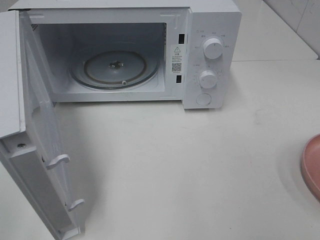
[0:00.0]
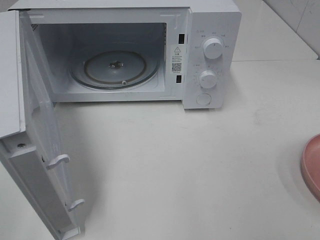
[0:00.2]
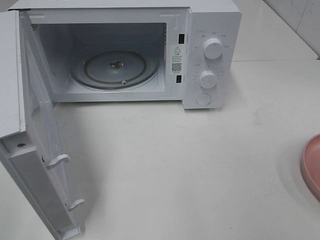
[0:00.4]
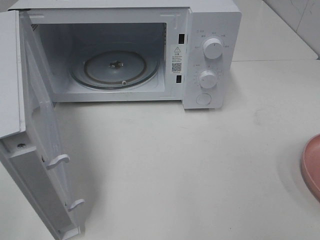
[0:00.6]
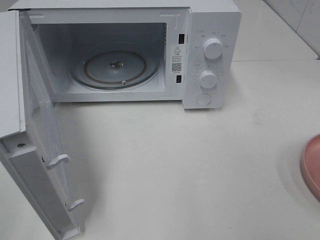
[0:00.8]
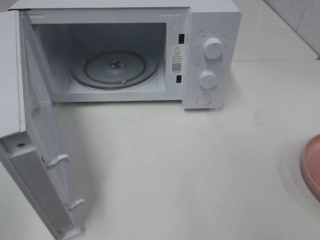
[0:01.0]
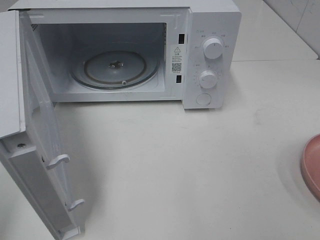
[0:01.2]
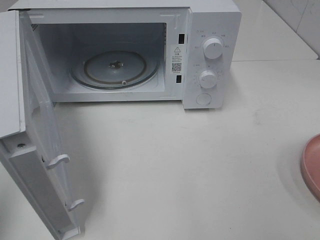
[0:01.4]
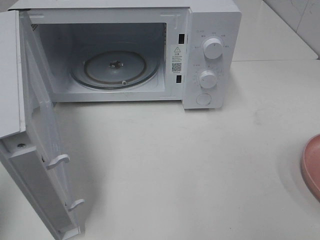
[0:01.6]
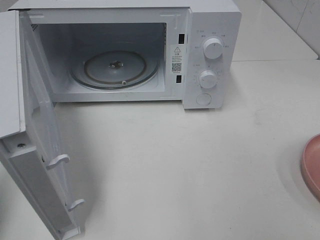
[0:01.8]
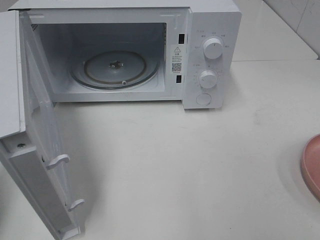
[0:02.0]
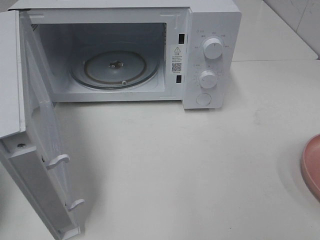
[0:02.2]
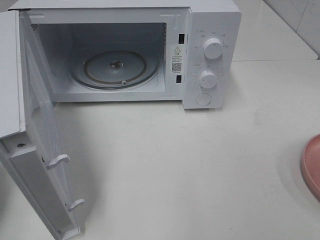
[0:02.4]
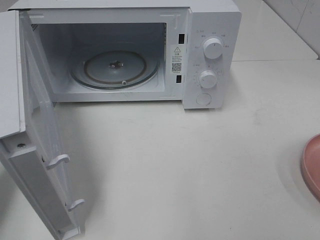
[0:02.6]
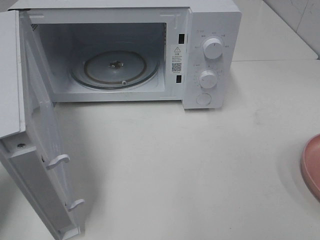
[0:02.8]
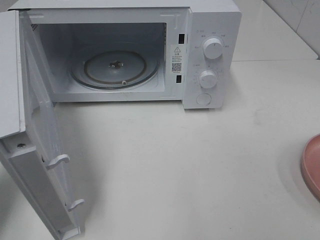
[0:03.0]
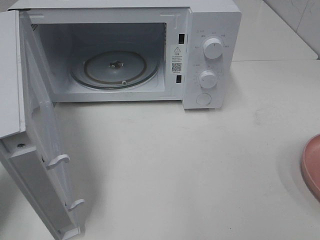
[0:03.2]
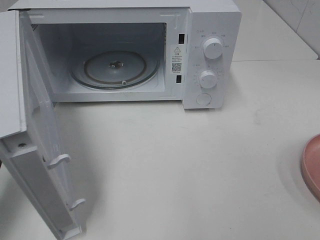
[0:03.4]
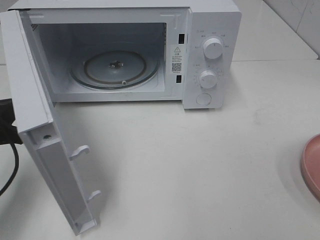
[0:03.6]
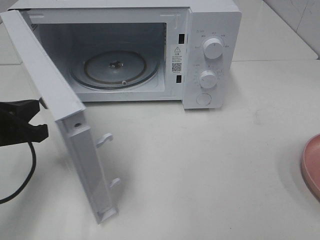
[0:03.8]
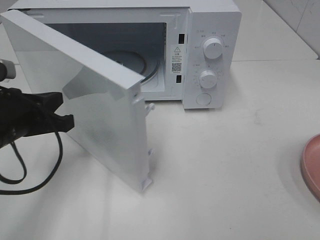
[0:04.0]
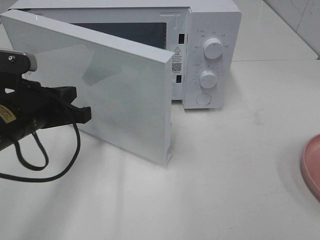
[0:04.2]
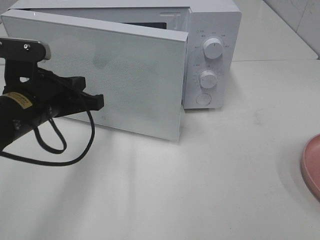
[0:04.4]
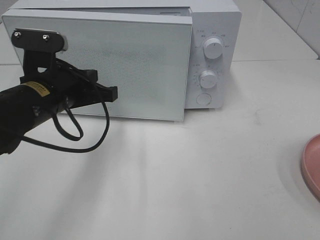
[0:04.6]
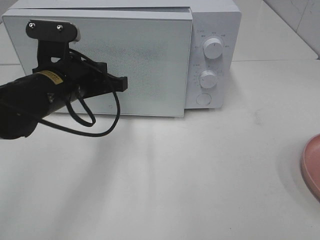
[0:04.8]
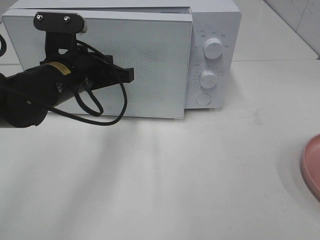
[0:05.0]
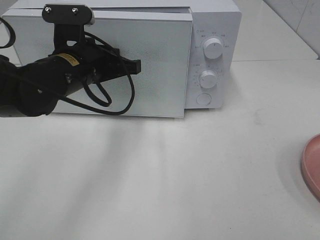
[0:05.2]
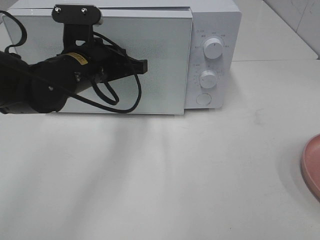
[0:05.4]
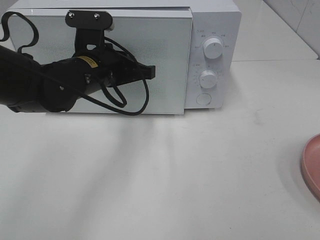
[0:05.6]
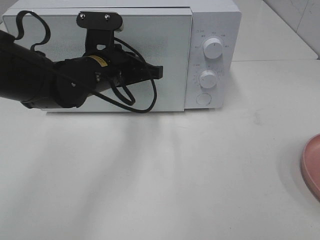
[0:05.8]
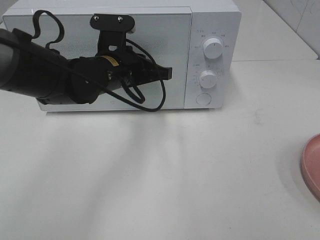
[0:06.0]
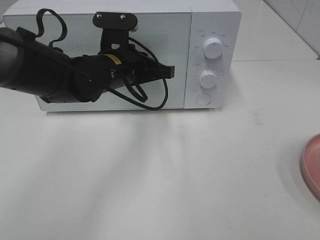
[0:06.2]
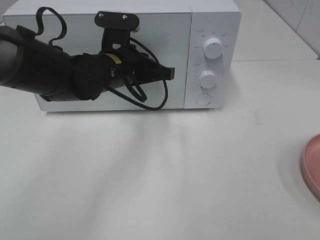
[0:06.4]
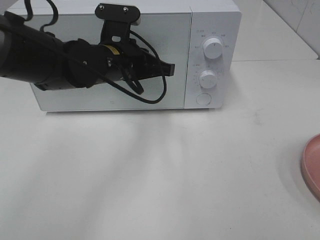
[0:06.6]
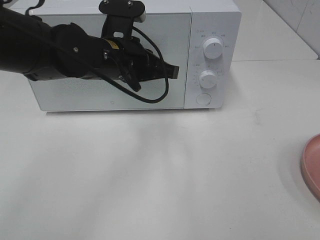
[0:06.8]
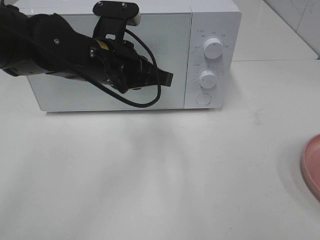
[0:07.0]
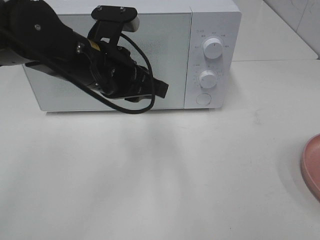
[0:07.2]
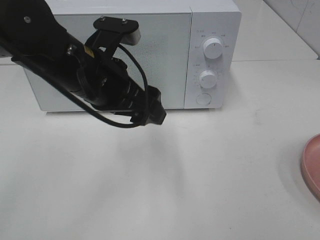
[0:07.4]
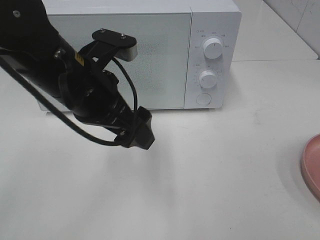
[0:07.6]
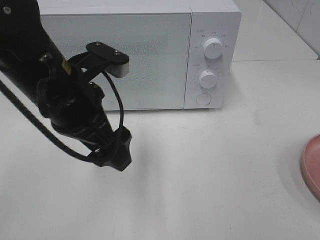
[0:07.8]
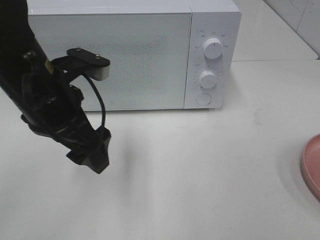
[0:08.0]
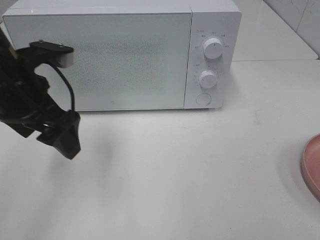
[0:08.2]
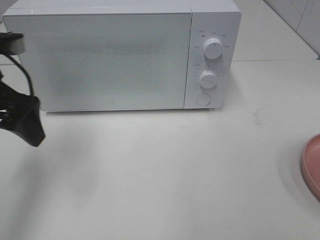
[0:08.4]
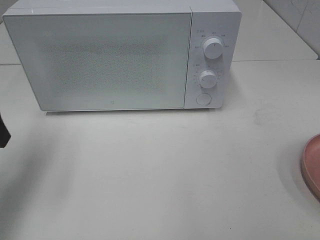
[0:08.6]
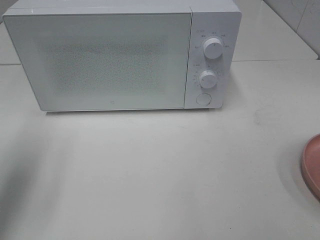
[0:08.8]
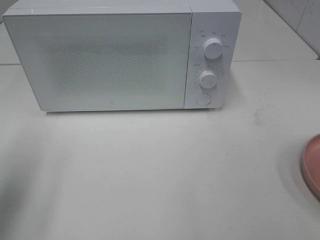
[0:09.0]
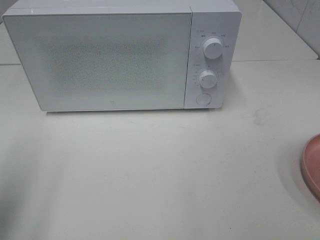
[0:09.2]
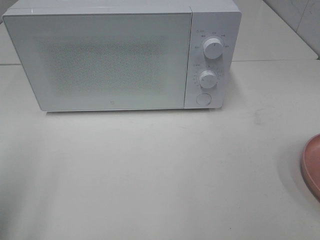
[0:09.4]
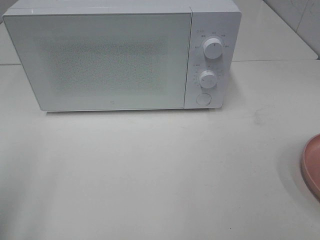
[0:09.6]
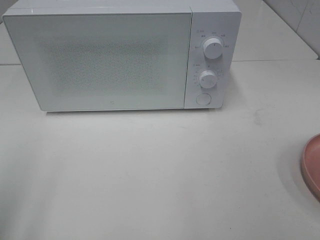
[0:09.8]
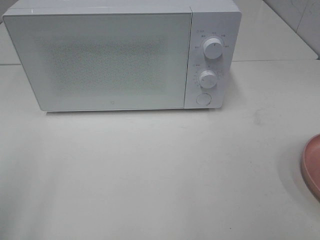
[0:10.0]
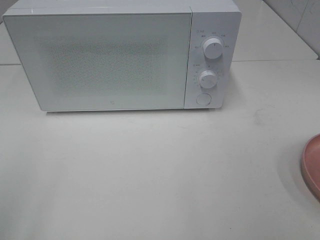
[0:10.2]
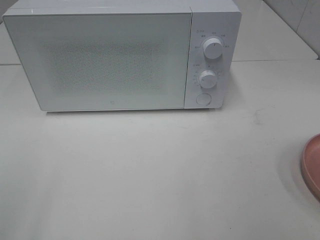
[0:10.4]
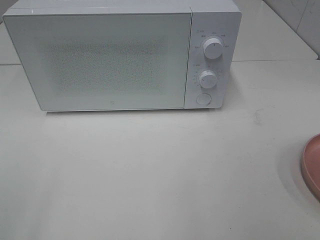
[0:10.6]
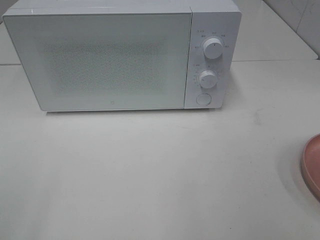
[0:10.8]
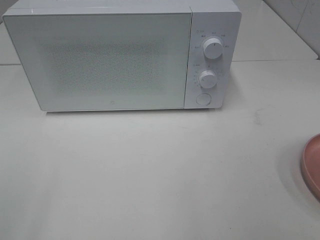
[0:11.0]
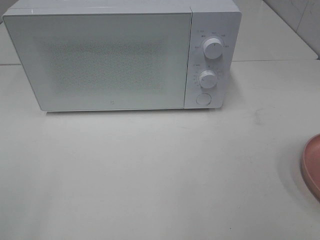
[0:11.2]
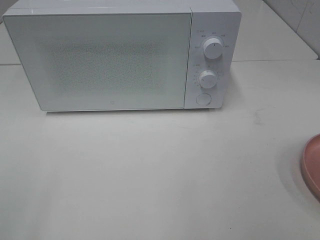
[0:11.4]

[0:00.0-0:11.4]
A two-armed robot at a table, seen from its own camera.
Task of the whole recording: Heat the burger.
Step, 0:00.0 to 0:06.6: Left hand: close the microwave door.
0:01.4 to 0:02.8: The left gripper heads forward and downward, covering roughly 15 cm.
0:02.8 to 0:04.2: The left gripper goes some 15 cm to the right and forward.
0:04.2 to 0:05.6: The left gripper is displaced to the right and forward by approximately 15 cm.
0:05.6 to 0:07.2: The left gripper heads backward, covering some 5 cm.
0:07.2 to 0:08.6: The left gripper is displaced to the left by some 20 cm, and opens up.
0:08.6 to 0:10.0: The left gripper goes some 15 cm backward.

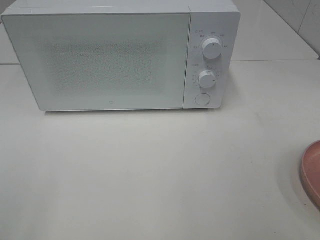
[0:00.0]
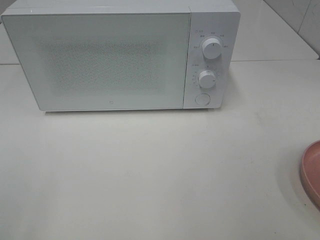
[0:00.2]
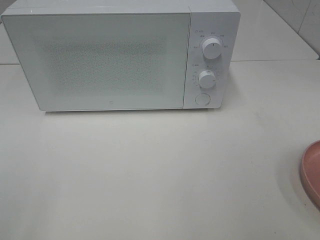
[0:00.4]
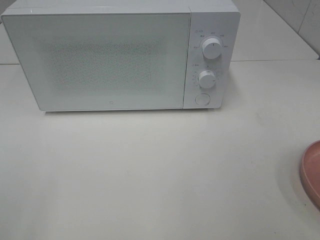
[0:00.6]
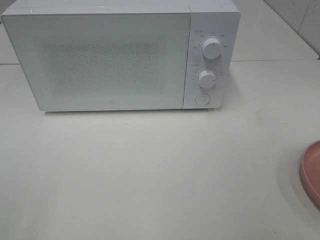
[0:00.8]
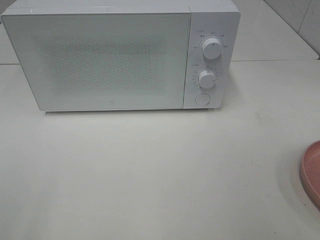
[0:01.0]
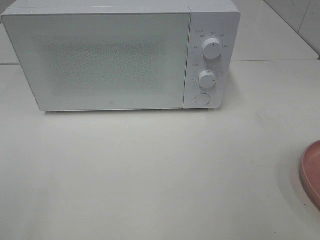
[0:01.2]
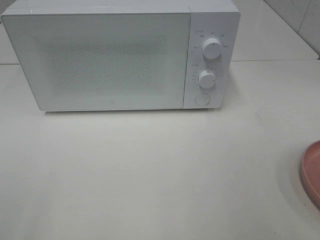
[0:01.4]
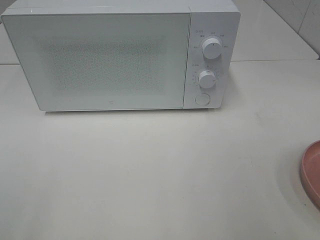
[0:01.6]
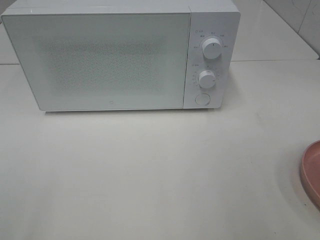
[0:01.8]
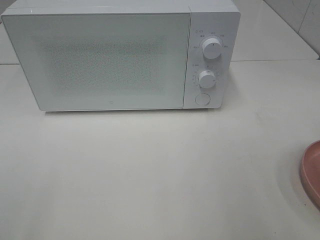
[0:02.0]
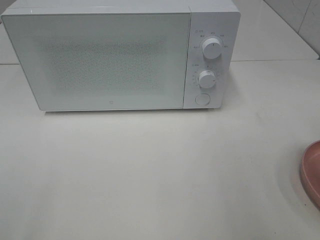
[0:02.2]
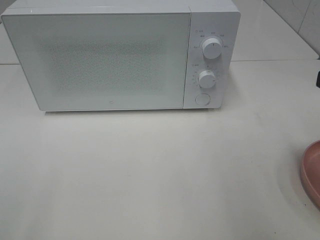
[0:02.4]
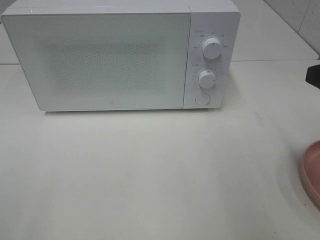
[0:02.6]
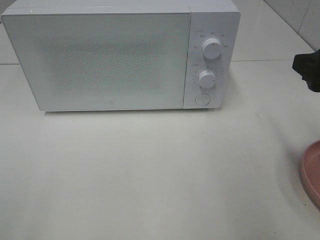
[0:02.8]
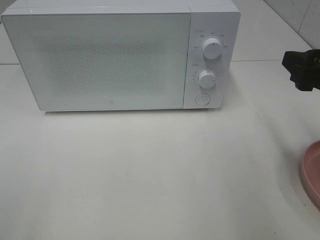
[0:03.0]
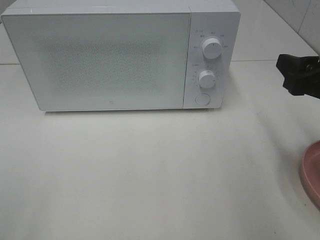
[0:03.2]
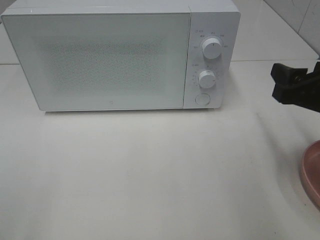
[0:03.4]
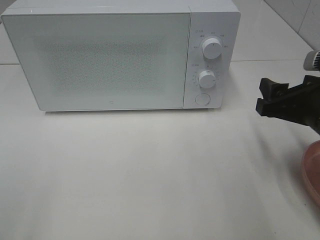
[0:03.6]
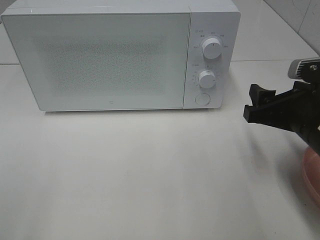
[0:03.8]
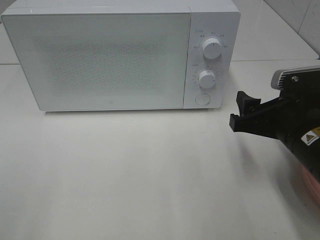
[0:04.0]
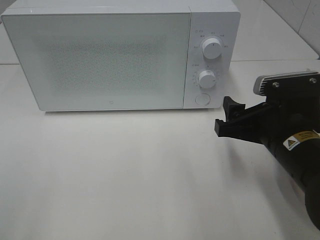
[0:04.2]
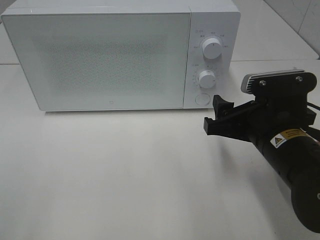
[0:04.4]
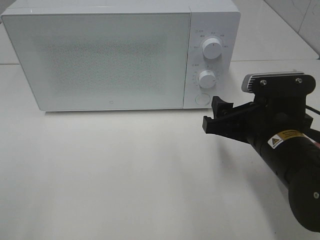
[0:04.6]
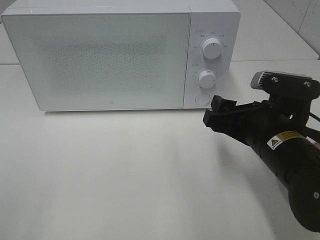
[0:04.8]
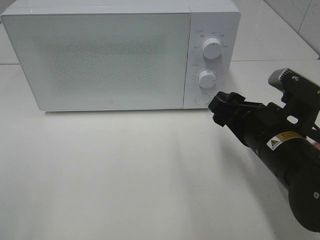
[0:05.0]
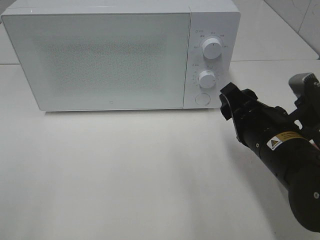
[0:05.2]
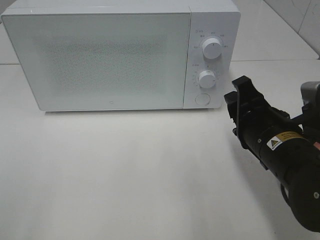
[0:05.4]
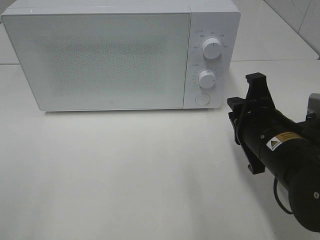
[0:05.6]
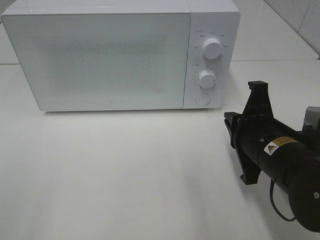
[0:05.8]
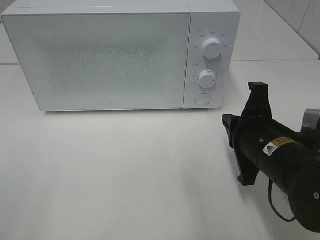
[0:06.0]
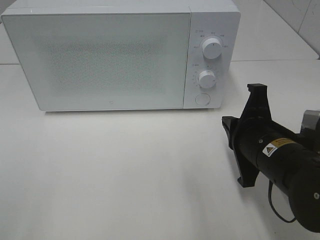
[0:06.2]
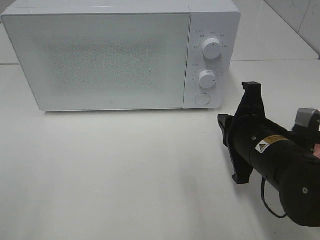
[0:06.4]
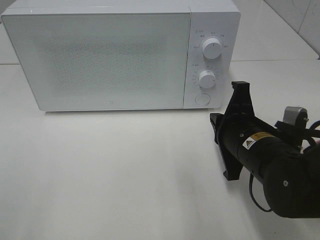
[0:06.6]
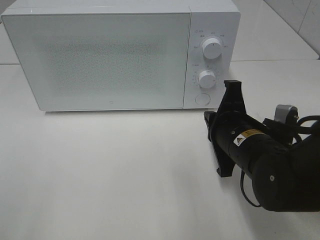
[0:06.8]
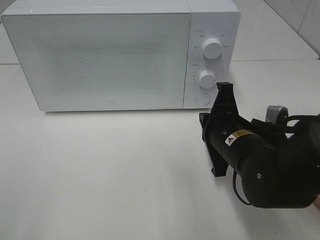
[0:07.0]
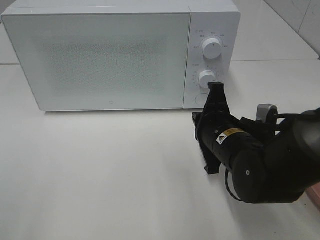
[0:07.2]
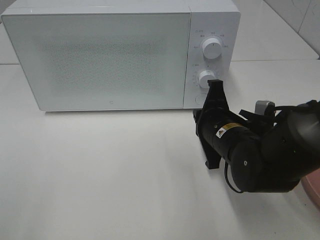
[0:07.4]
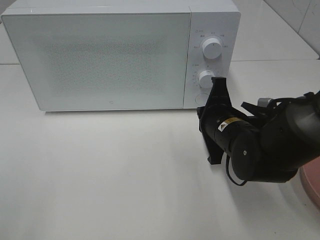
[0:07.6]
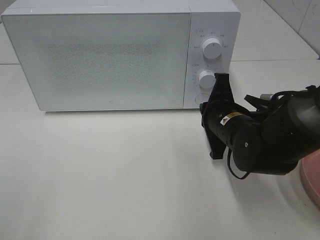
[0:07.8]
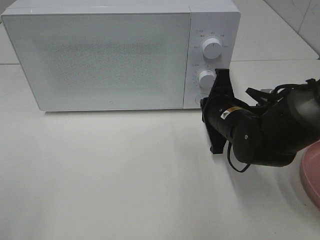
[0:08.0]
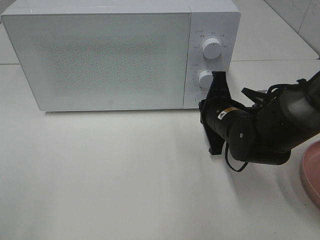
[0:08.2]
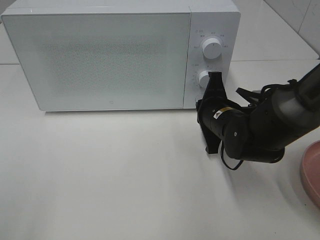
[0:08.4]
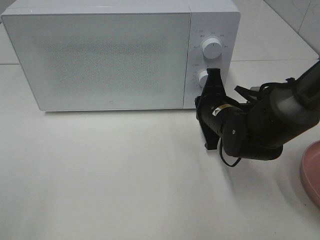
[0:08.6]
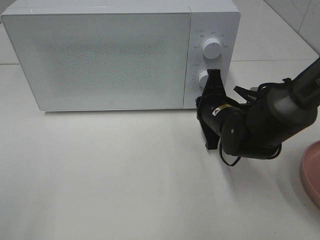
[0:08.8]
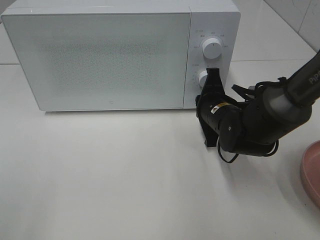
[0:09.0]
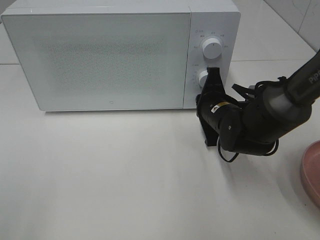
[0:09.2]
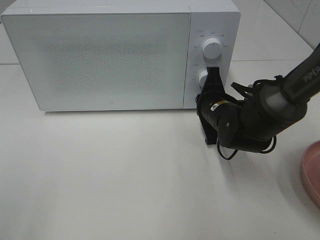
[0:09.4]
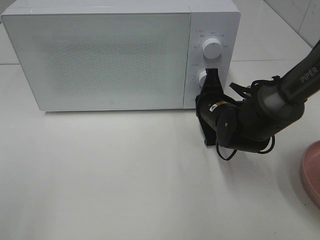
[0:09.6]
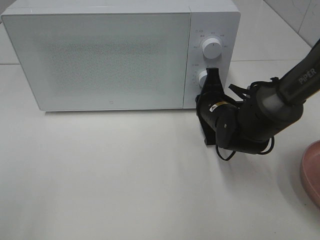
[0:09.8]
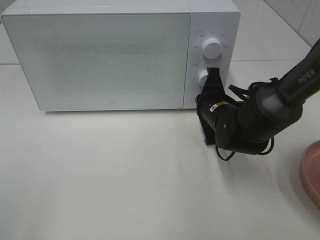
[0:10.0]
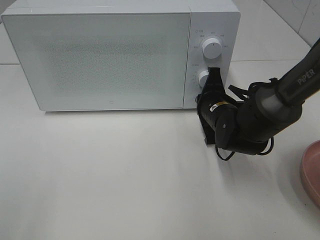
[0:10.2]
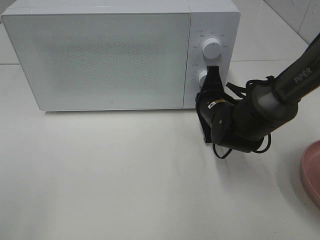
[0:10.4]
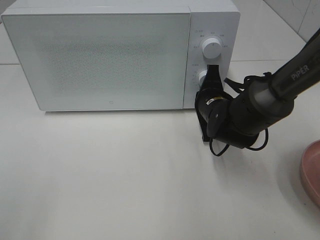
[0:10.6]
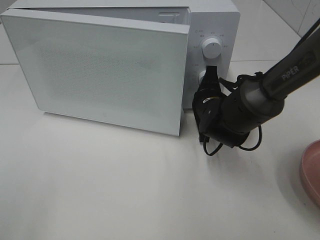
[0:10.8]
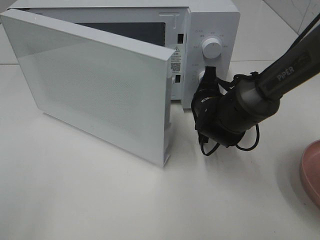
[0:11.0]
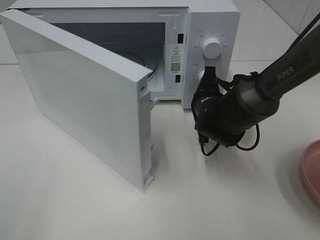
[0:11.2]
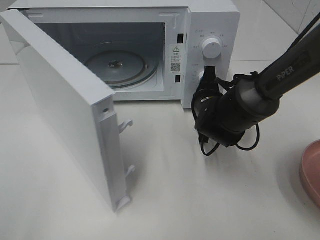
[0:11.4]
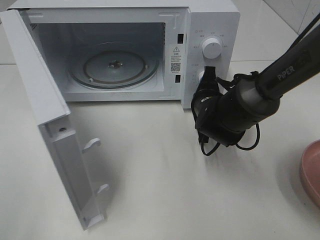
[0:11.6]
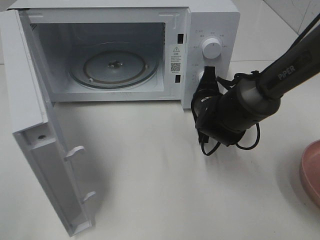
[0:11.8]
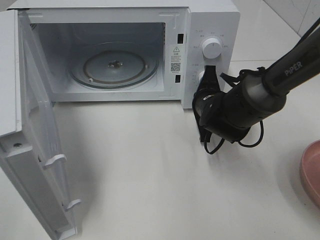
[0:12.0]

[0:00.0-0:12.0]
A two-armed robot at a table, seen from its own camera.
Task of the whole recording: Heat the burger.
0:01.6 to 0:03.0: The right gripper heads forward and downward, covering roughly 15 cm.
0:03.0 to 0:04.4: The right gripper heads to the left and downward, covering approximately 15 cm.
0:04.4 to 0:06.0: The right gripper closes.
0:06.0 to 0:07.6: The right gripper shifts roughly 5 cm forward.
0:07.6 to 0:09.0: The right gripper moves forward, roughly 5 cm.
0:09.0 to 0:10.4: The grippers stay close to where they were, moving slightly.
